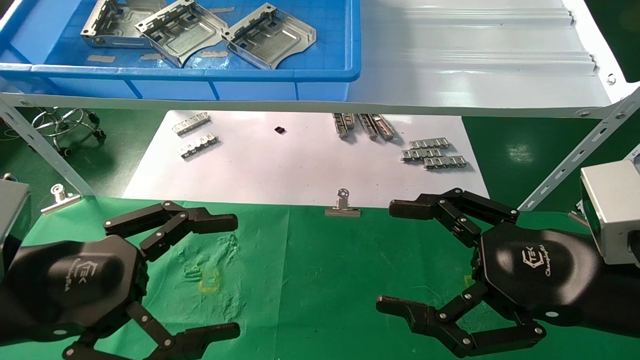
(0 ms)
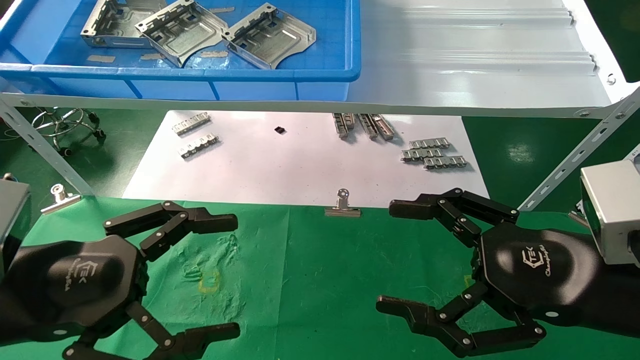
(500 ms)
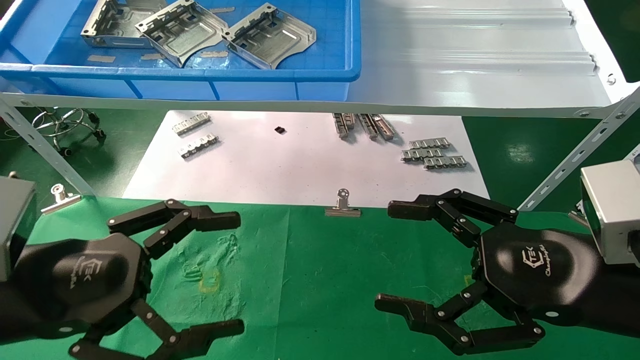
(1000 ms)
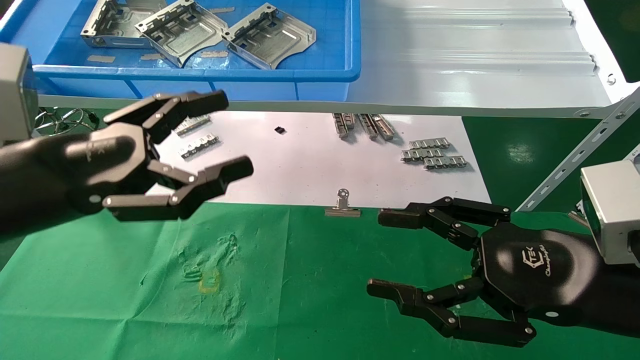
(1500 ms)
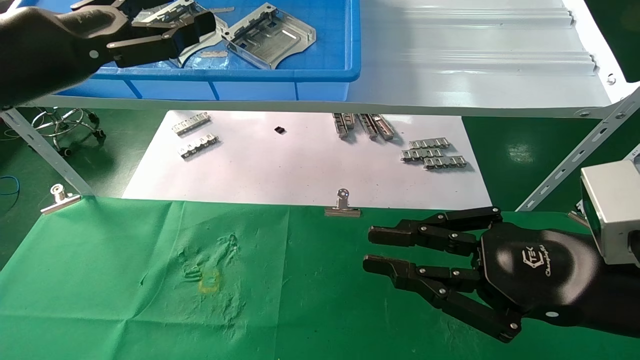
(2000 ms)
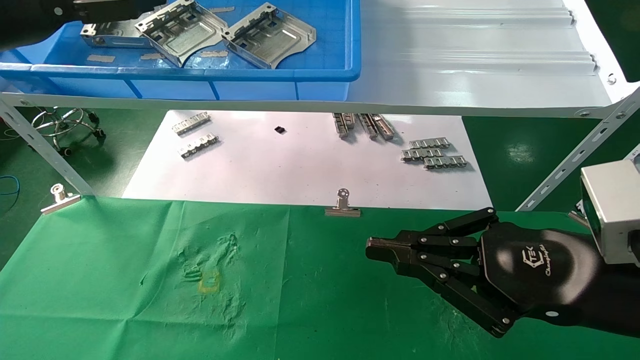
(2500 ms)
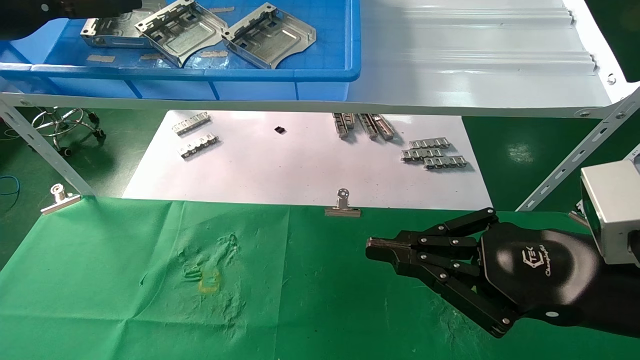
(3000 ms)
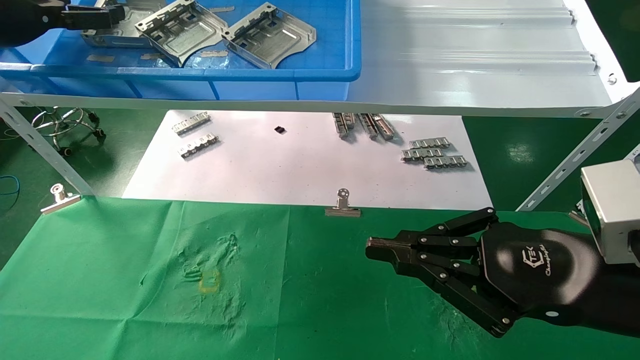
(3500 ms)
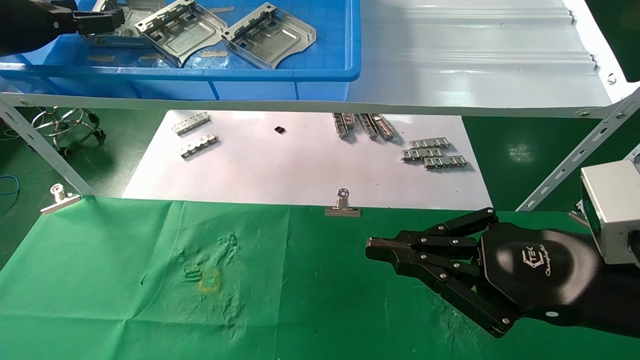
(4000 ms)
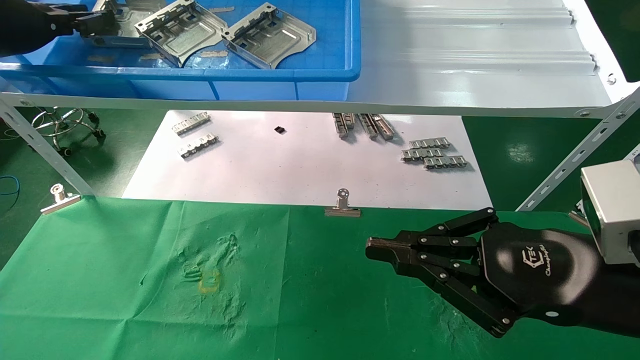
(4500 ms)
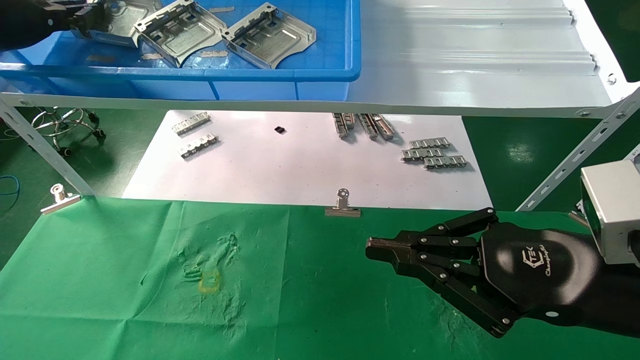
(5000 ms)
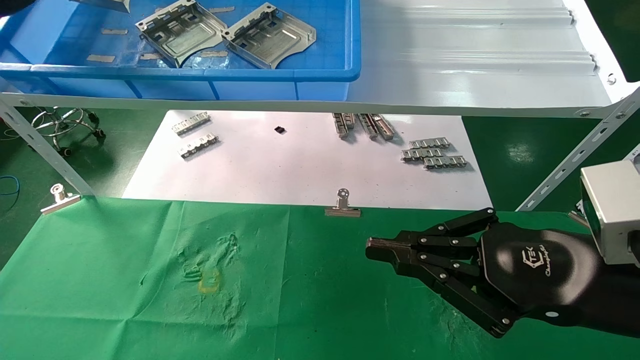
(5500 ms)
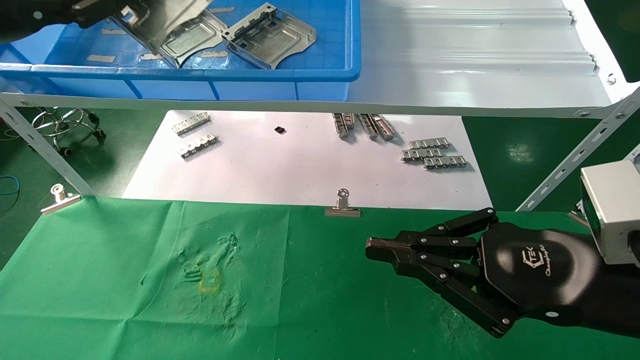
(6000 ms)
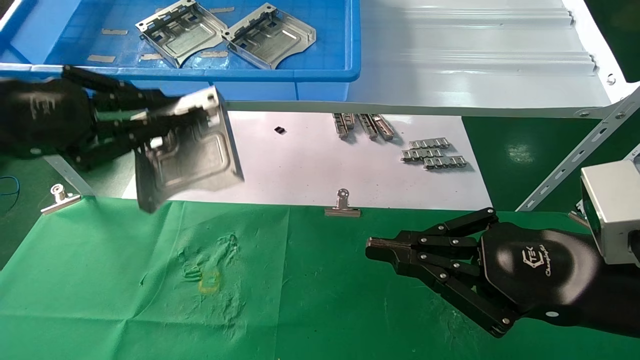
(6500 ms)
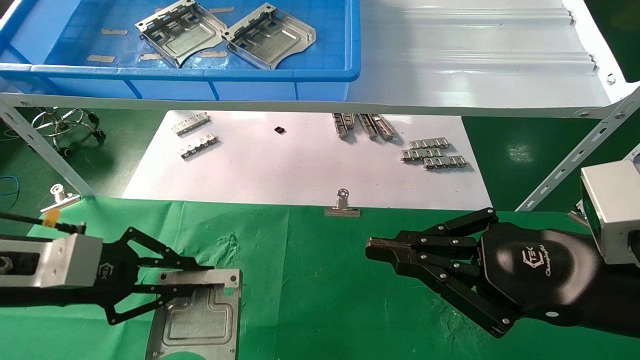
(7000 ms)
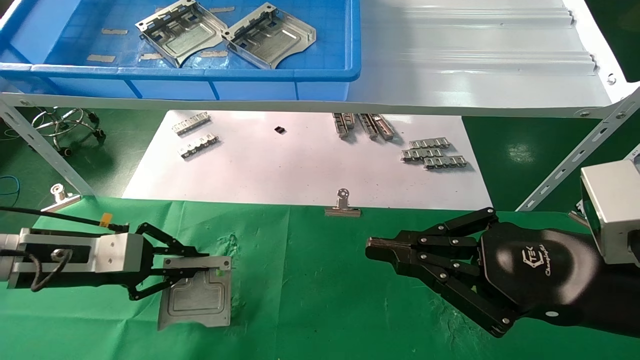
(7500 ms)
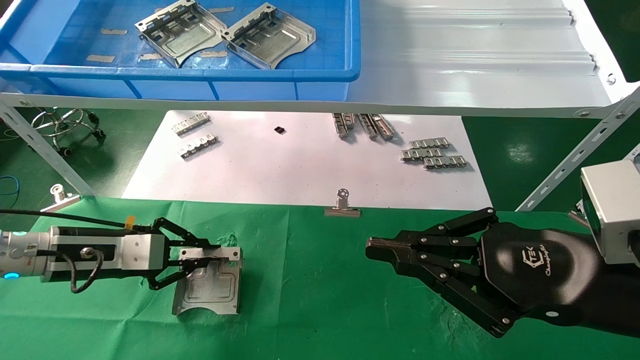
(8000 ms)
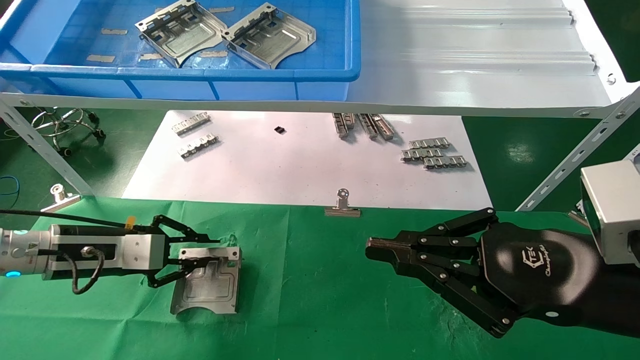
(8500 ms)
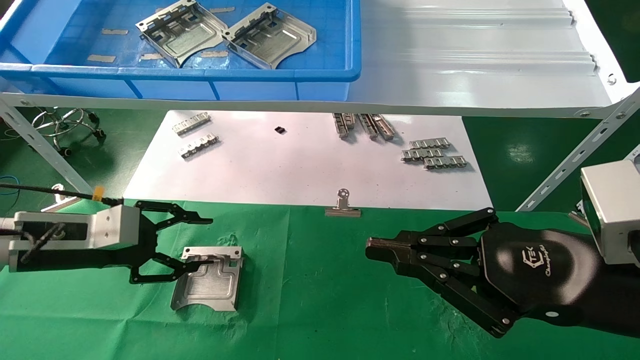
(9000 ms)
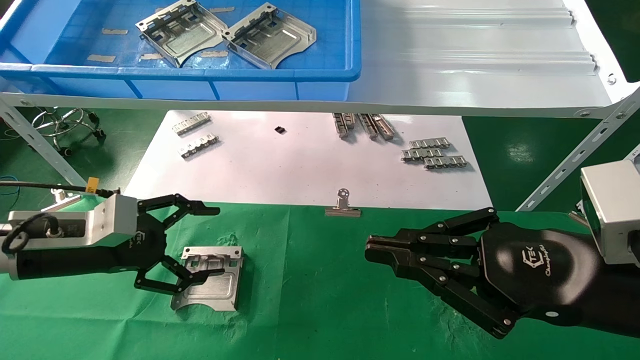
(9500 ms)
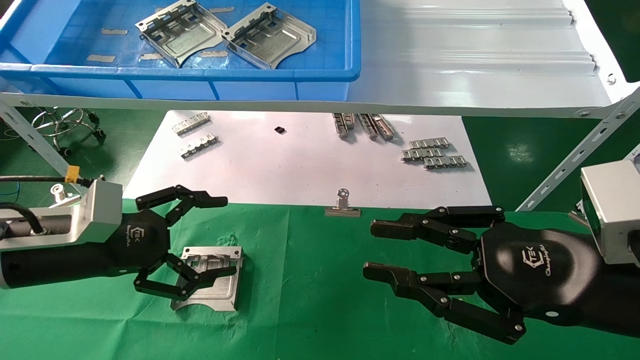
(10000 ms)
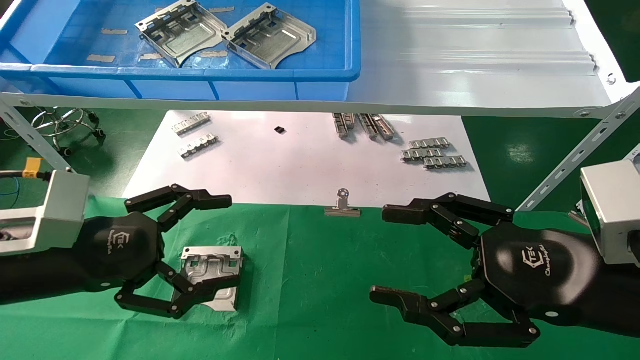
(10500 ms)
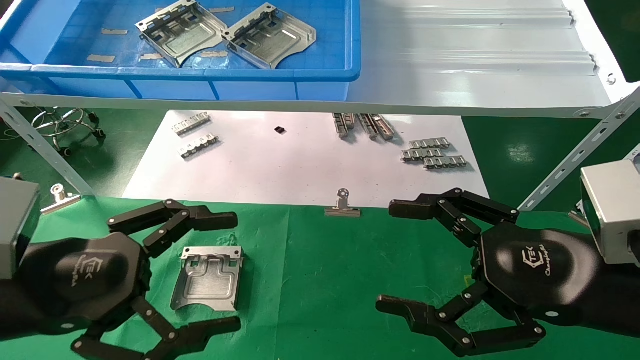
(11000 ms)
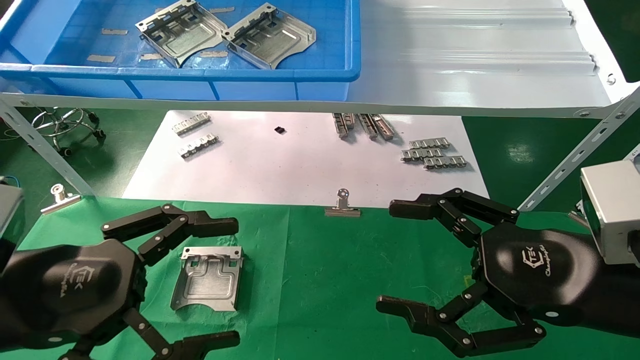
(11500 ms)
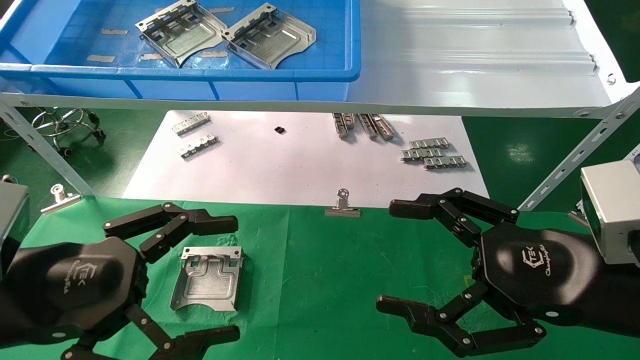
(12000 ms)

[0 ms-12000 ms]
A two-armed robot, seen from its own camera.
Task of the whole recording: use the mechanical arm to pick up the parts and place them on the table.
Step, 1500 ms to 4500 ms: Pick up the hard drive bracket from the feeding area.
Step, 5000 ms to 8500 ms: Place the hard drive bracket into the box.
0 ms to 2000 ms: The right gripper closes its fingers. The left gripper is displaced upward and forward by approximately 20 cm.
2000 ms to 4000 ms: The left gripper heads forward, to the left and upward, covering roughly 15 cm.
4000 ms to 6000 ms: The left gripper is displaced backward by approximately 10 cm, and closes its fingers.
6000 ms to 8000 ms: The left gripper is displaced downward by approximately 25 cm.
8000 ms to 10000 ms: The left gripper goes about 5 cm backward, and opens.
10000 ms to 12000 ms: The left gripper heads backward, covering approximately 10 cm; the right gripper opens.

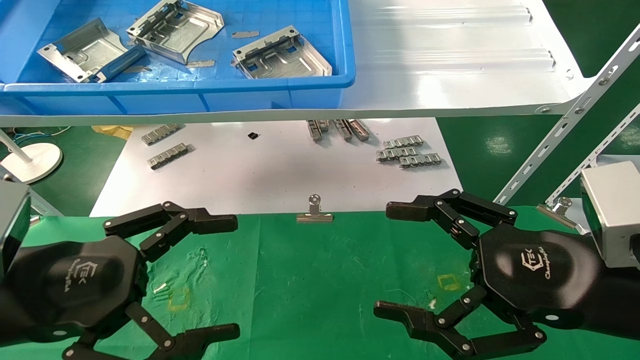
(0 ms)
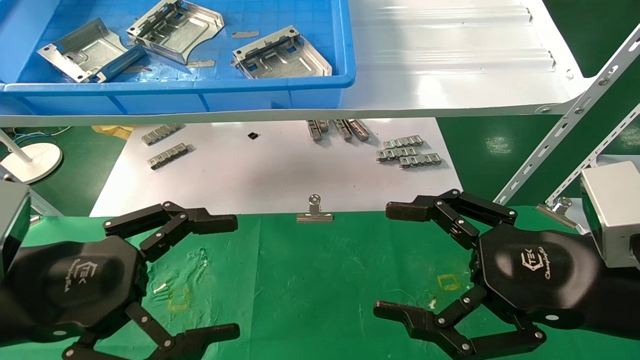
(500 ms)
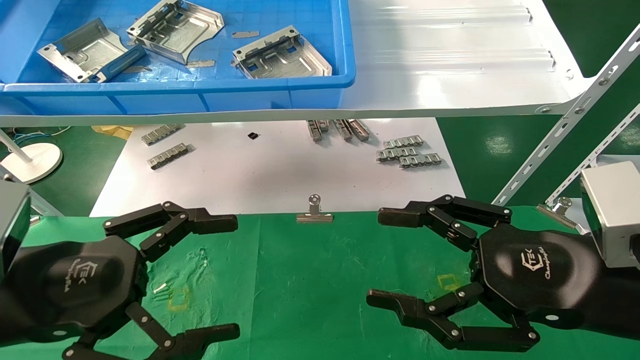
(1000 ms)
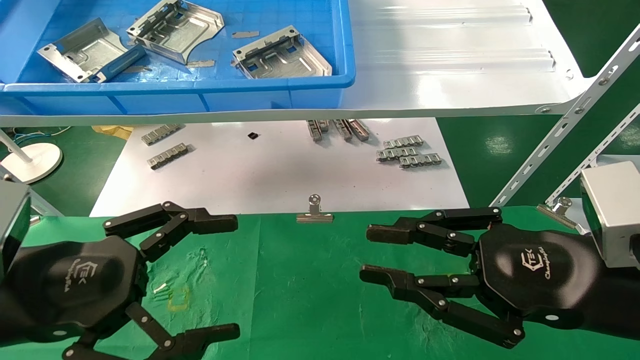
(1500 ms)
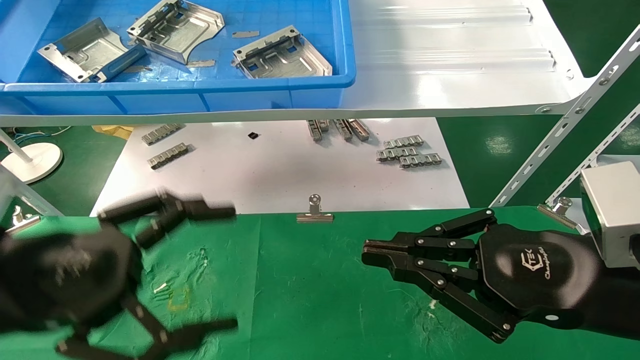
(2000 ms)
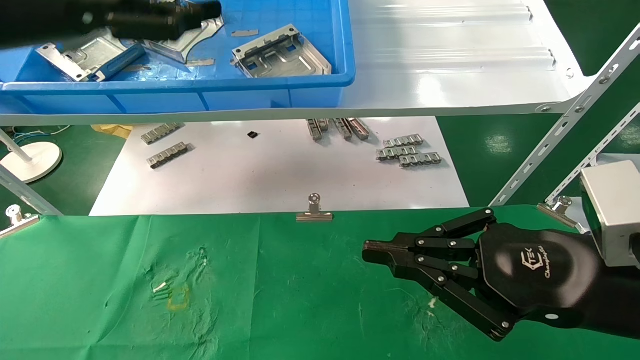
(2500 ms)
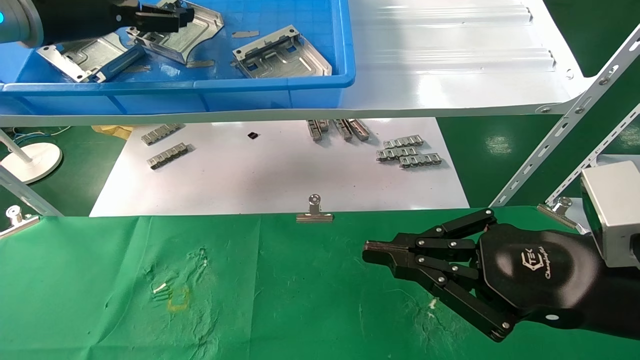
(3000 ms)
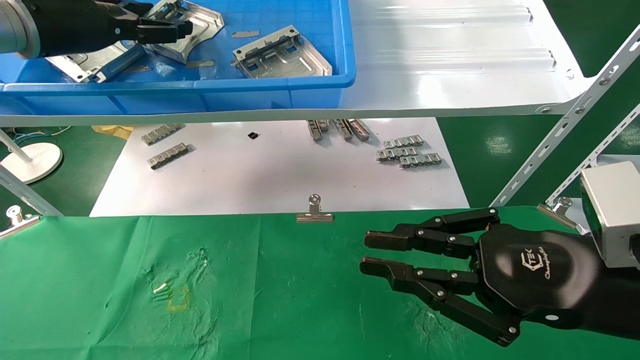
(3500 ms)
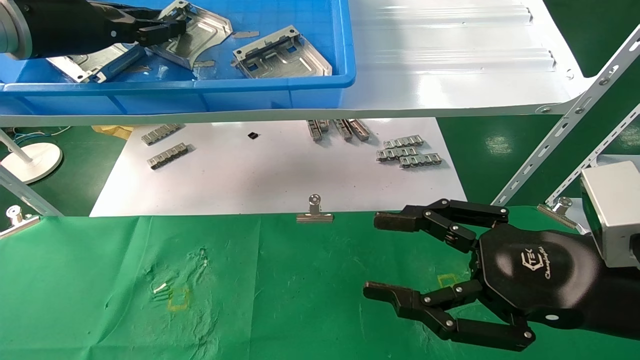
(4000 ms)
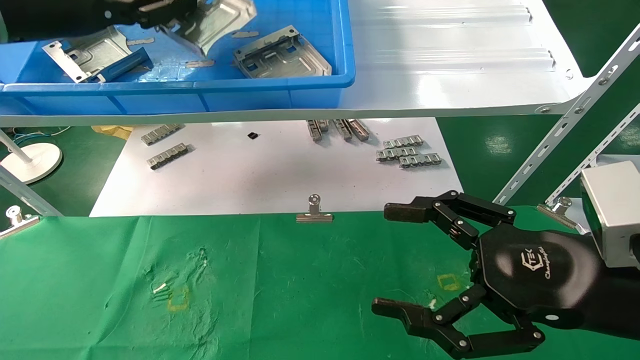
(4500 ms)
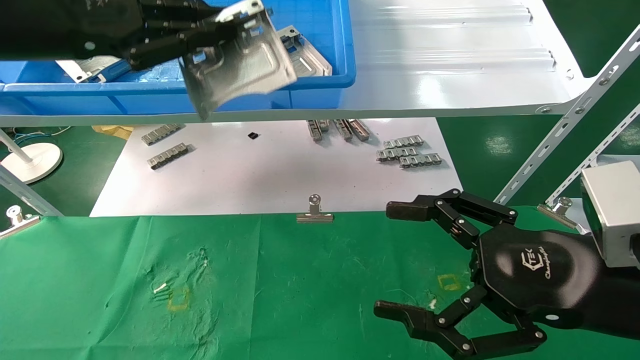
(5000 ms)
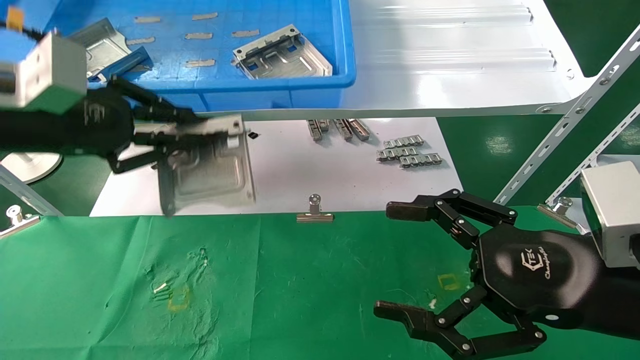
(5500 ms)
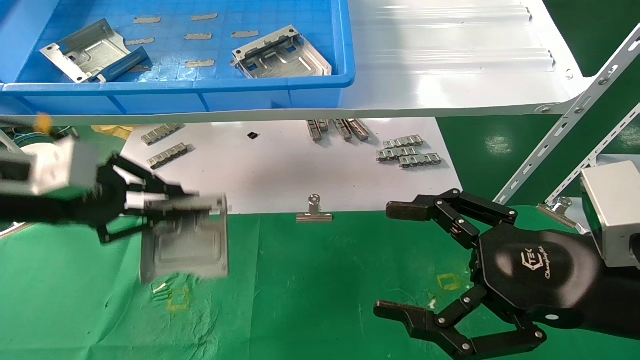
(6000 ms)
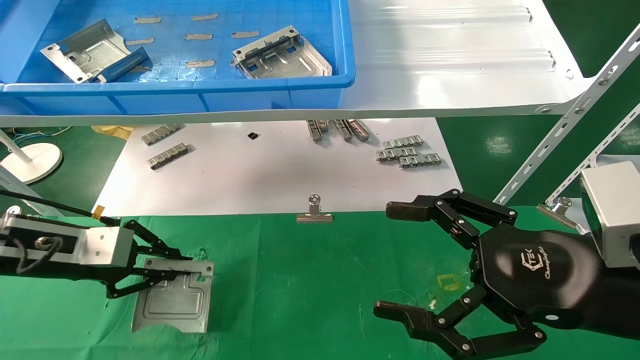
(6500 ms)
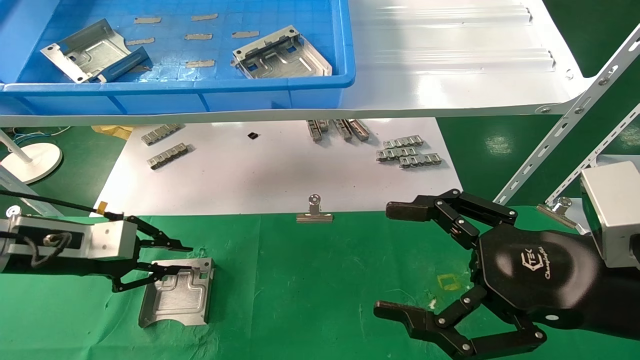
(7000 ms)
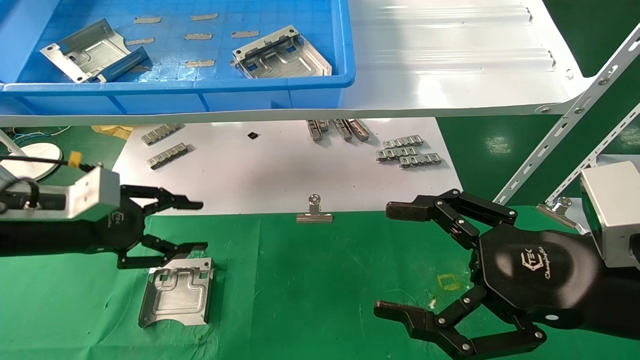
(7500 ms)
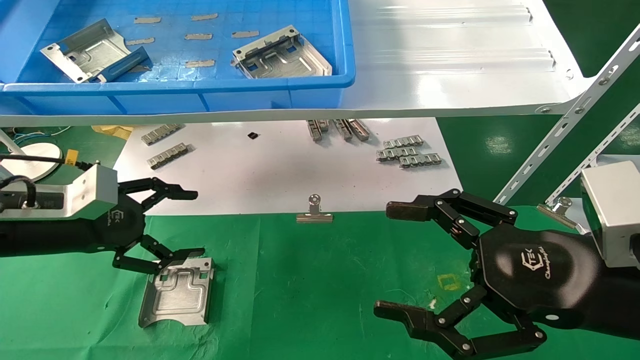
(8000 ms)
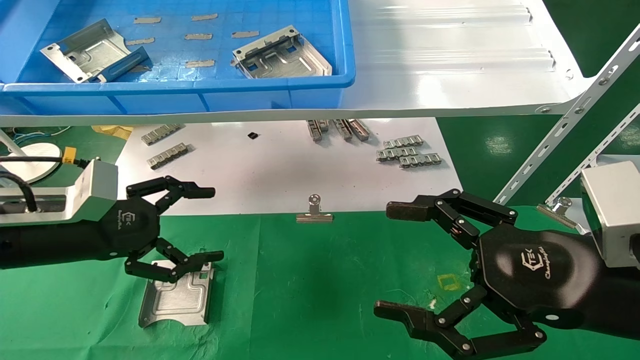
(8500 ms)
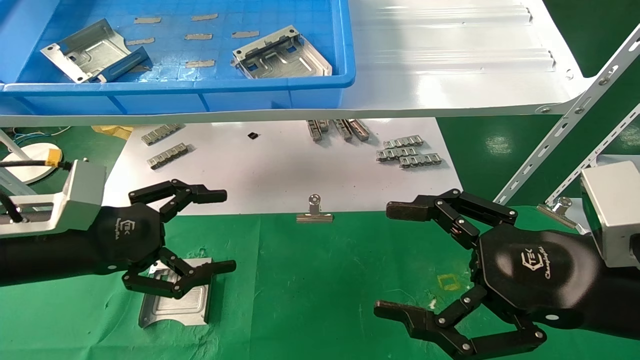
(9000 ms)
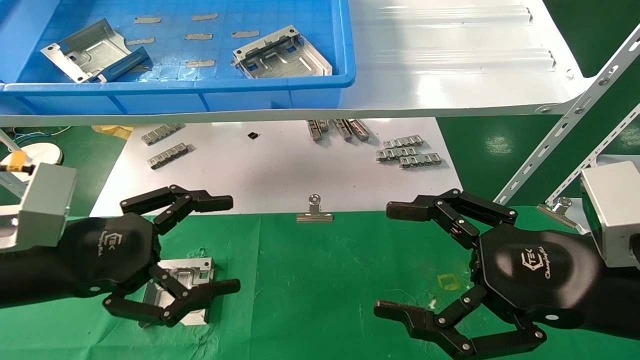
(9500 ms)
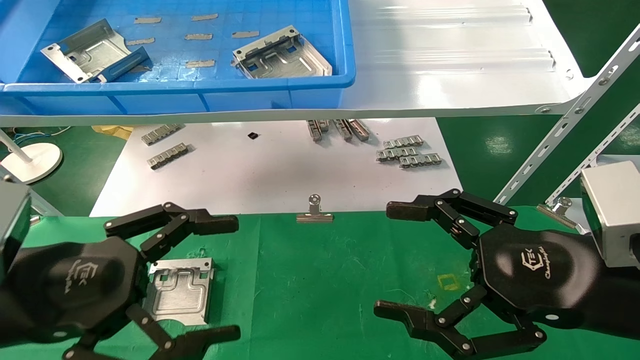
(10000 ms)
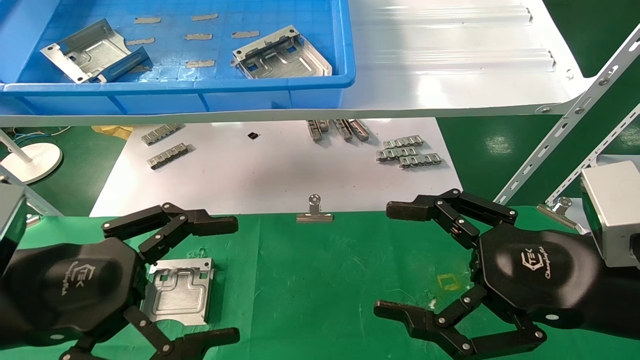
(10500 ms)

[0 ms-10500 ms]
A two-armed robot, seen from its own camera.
Task of the whole recording: use the mechanical arm to pick up the parts and place them on the table.
Step, 2500 ms to 4000 ms: Pick up the hard drive bracket from the feeding area.
Step, 4500 ms to 7000 ms: Place the hard drive bracket into the box.
0 ms to 2000 ms: The right gripper closes its fingers, while the left gripper shifts about 5 cm upward.
2000 ms to 4000 ms: The right gripper opens up. Meanwhile the left gripper is displaced forward and upward by roughly 25 cm, and closes.
4000 ms to 6500 ms: The right gripper opens; the left gripper goes about 25 cm downward, and closes its fingers.
6500 ms to 8500 ms: The left gripper opens up.
8500 ms to 10500 ms: The left gripper shifts approximately 10 cm backward.
